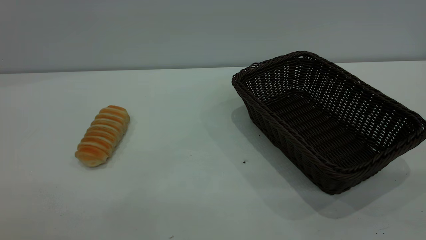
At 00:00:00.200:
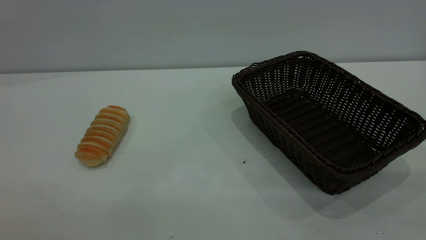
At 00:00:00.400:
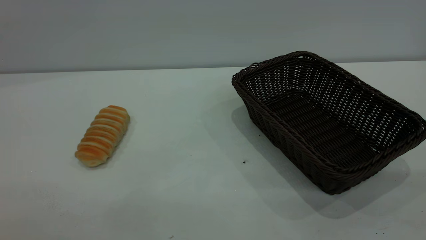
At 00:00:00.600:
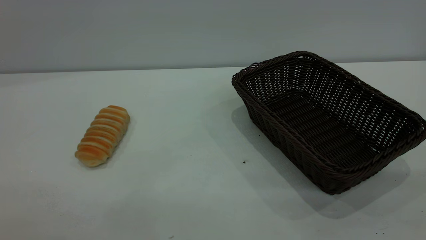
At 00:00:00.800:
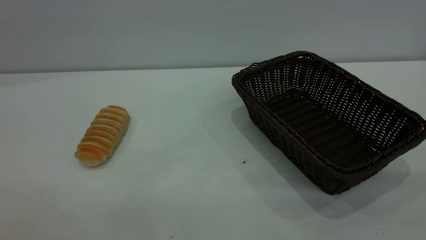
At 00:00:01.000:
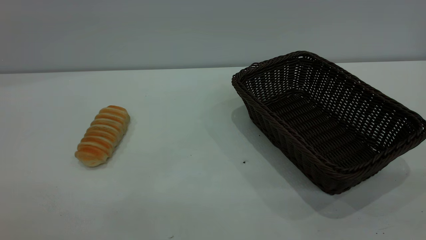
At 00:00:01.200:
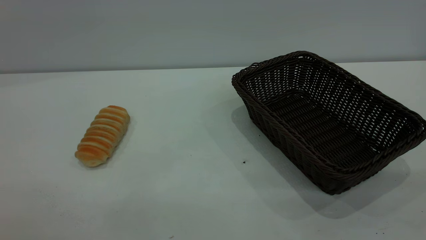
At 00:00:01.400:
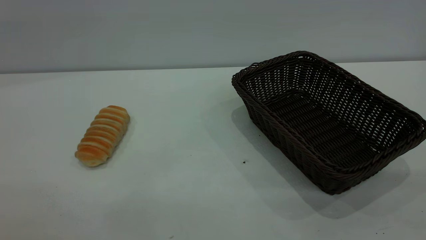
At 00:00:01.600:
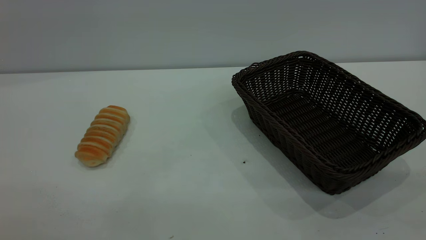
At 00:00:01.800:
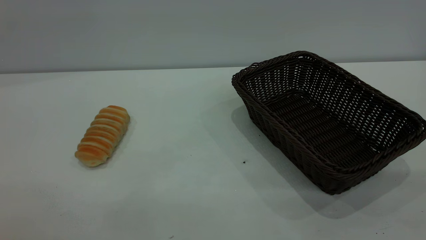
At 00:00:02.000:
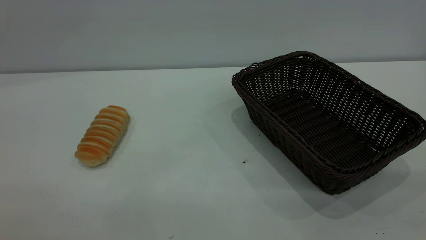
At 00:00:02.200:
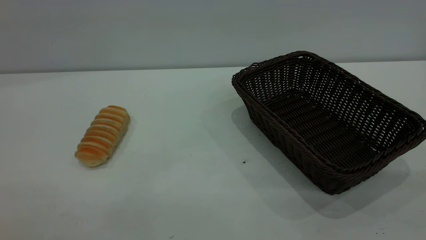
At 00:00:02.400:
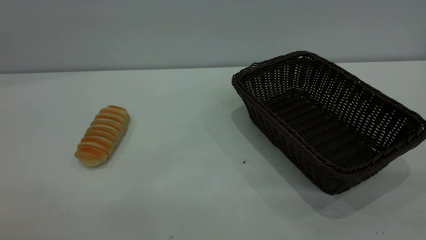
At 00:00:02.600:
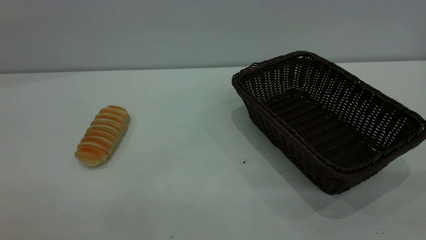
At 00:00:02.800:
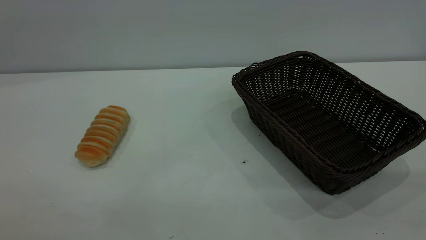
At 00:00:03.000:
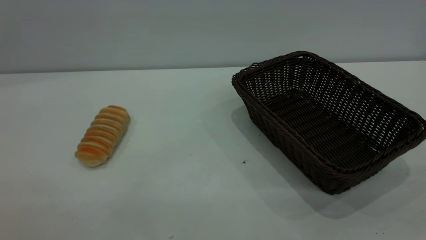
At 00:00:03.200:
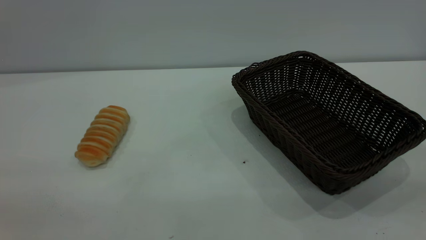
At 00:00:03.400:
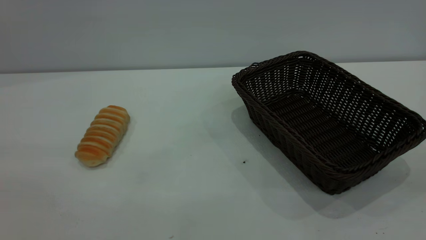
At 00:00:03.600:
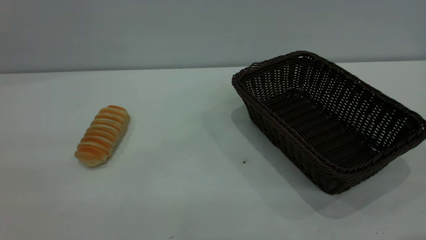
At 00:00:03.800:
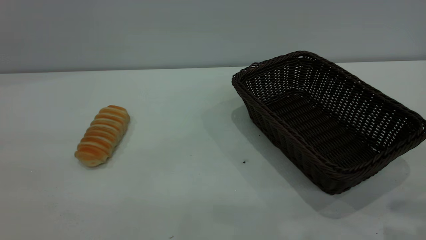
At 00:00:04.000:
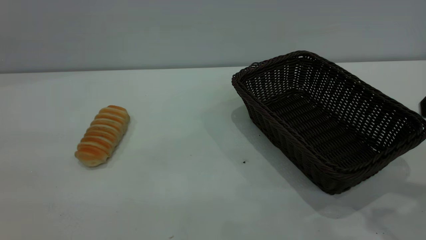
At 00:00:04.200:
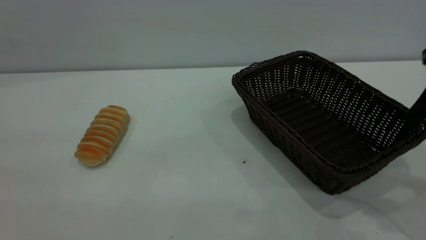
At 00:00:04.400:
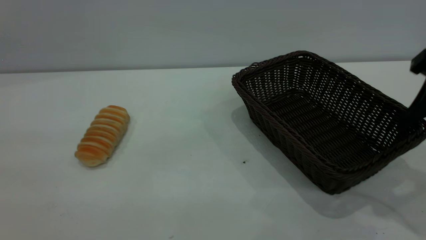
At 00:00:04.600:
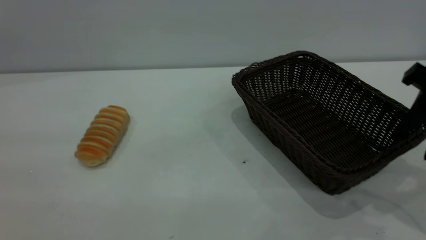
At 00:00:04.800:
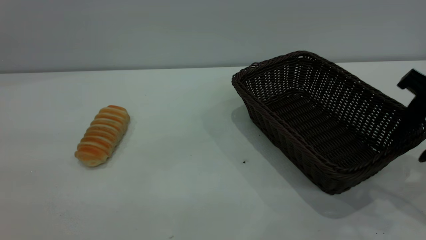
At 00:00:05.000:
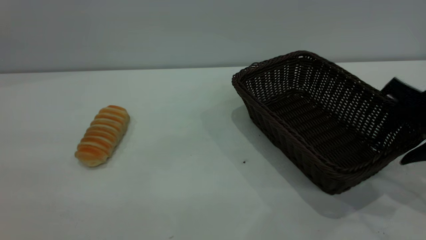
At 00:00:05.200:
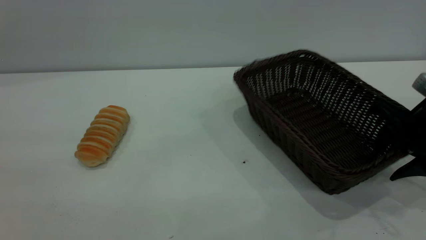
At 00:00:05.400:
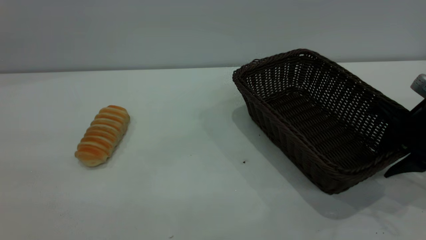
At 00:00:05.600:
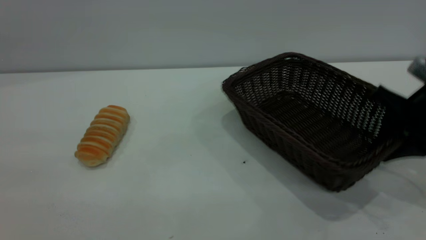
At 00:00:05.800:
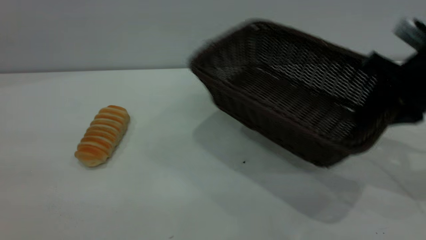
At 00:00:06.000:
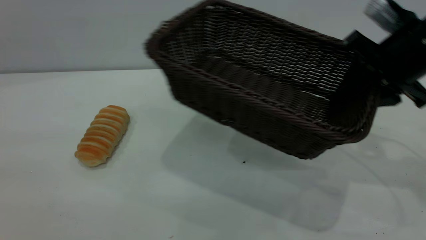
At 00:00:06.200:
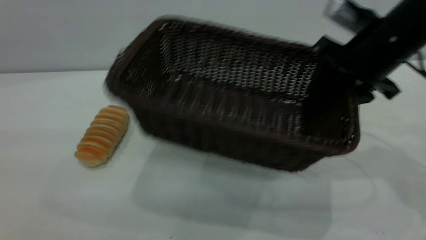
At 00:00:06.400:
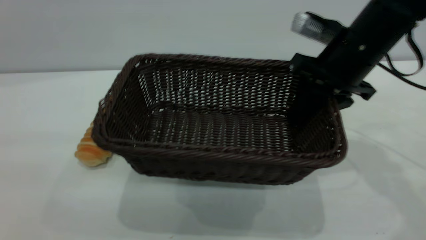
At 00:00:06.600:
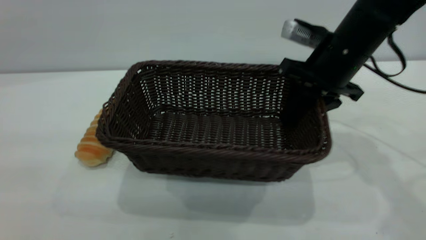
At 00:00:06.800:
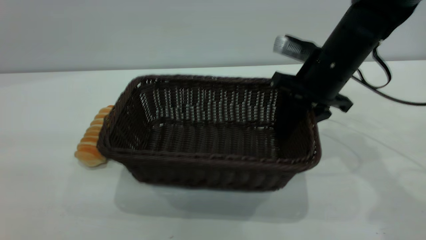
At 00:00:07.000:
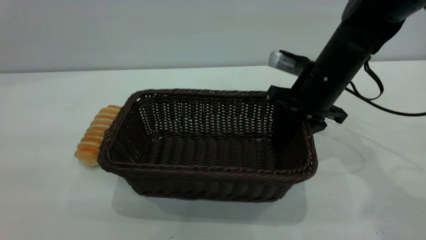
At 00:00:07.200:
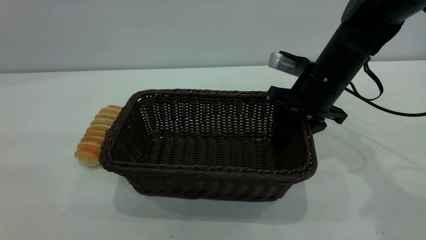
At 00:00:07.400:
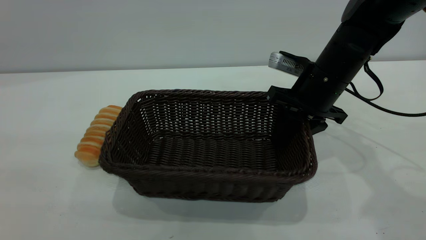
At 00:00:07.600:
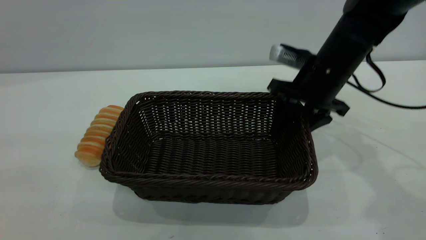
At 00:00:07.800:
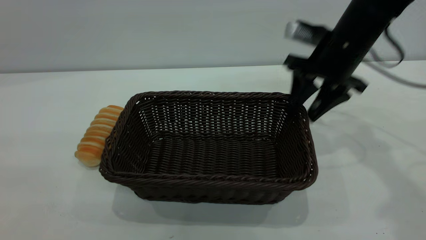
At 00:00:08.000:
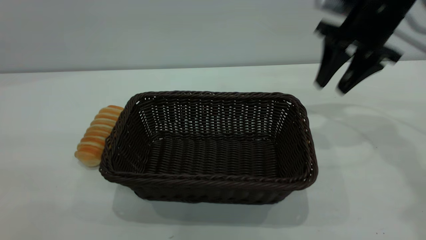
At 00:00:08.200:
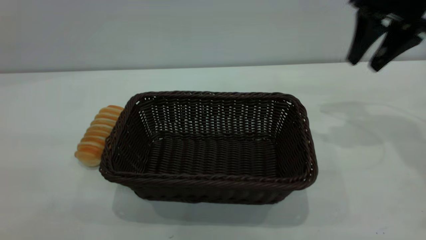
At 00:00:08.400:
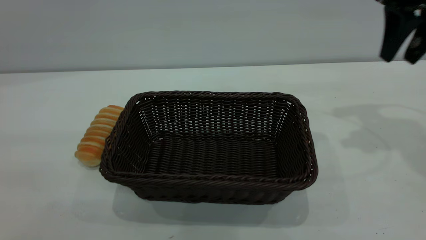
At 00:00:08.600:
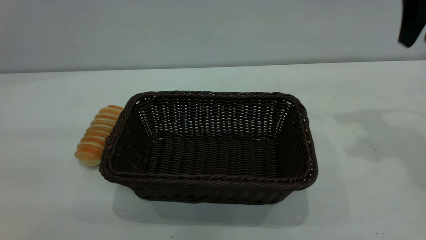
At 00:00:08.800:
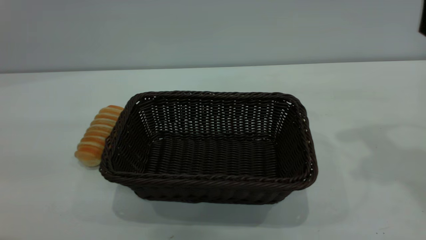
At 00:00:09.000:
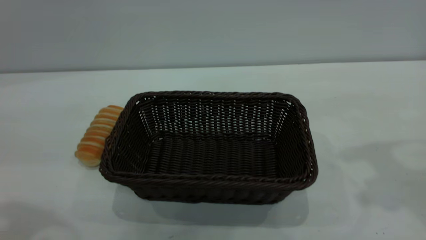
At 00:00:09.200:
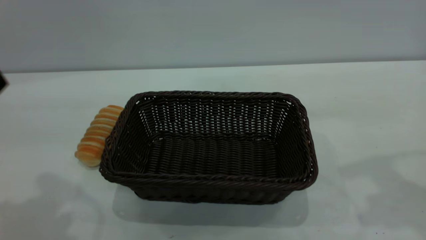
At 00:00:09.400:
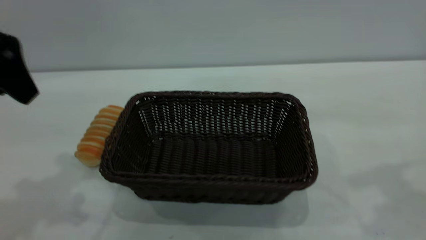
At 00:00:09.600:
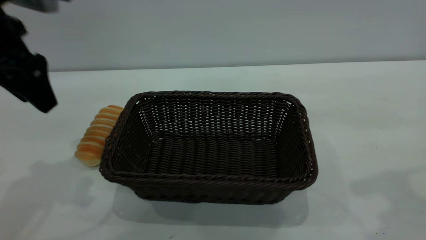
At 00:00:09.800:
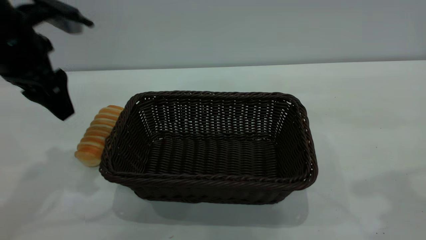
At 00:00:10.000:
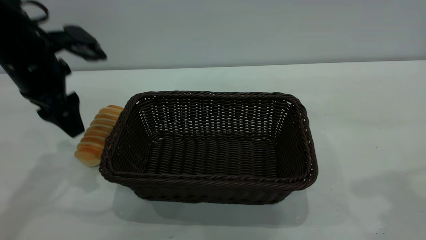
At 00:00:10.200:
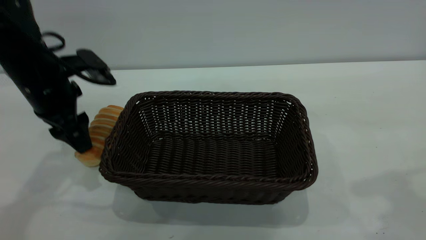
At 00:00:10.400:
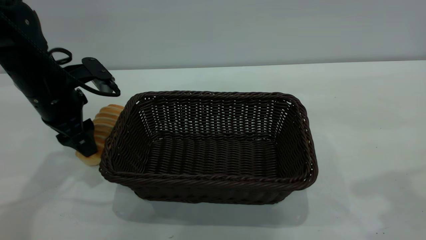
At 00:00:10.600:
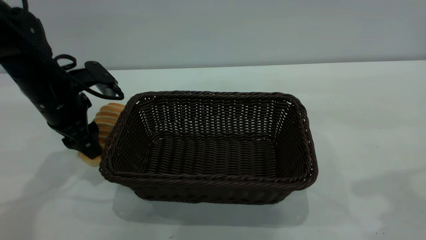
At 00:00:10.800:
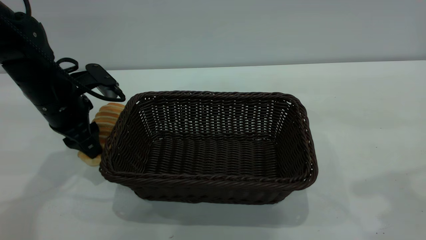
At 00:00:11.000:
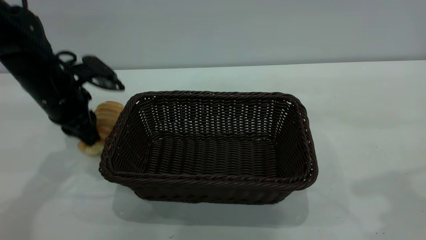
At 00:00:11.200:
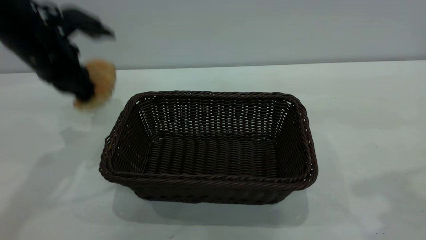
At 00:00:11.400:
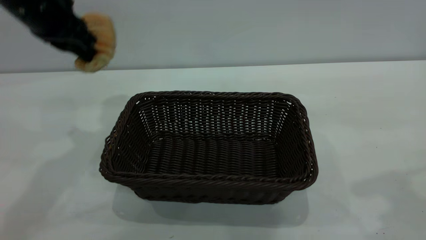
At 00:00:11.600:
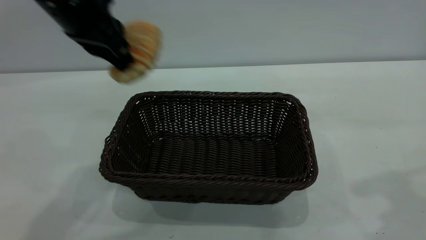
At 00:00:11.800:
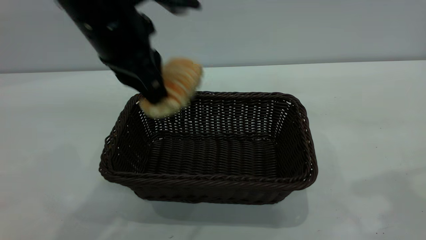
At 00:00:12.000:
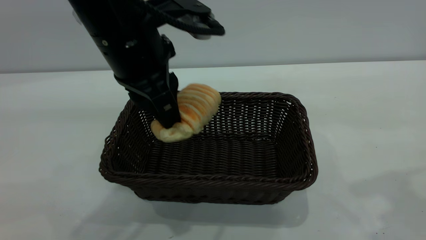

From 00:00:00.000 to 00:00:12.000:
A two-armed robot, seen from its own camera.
Task of the whole recording: One hand grasps the black basket and places it in the middle of the table, while the other hand picks up the long bread and puts it into the black basket.
Step, from 00:00:00.000 to 00:00:08.000: Move the basket to the center of view.
From 00:00:00.000 to 00:00:01.600: Both grippers stay about where they are.
From 00:00:03.000 to 00:00:04.400: The right gripper heads forward and downward, covering about 30 cm.
From 00:00:04.400 to 00:00:06.000: The right gripper moves forward, roughly 10 cm, goes downward and returns, approximately 10 cm each way, and closes up.
From 00:00:06.000 to 00:00:07.600: The right gripper is displaced to the left, forward and downward by approximately 10 cm, and opens up.
From 00:00:07.600 to 00:00:09.000: The right gripper heads upward, backward and to the right, covering roughly 25 cm; the left gripper goes approximately 15 cm forward.
From 00:00:09.000 to 00:00:10.400: The right gripper moves backward, some 5 cm. The left gripper travels downward and forward by roughly 30 cm.
From 00:00:10.400 to 00:00:12.000: The left gripper travels to the right, upward and backward by some 20 cm, and closes up.

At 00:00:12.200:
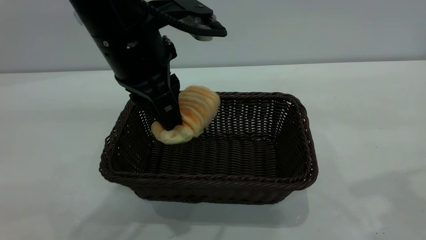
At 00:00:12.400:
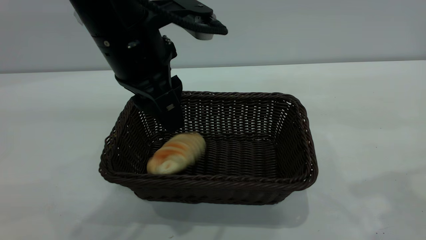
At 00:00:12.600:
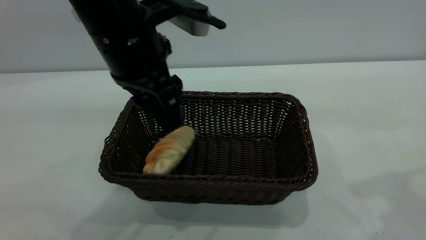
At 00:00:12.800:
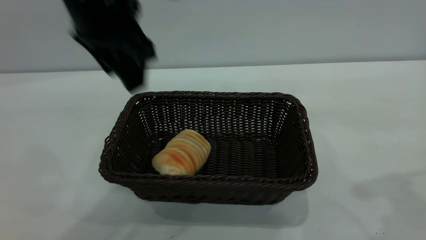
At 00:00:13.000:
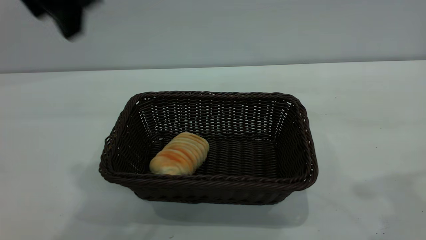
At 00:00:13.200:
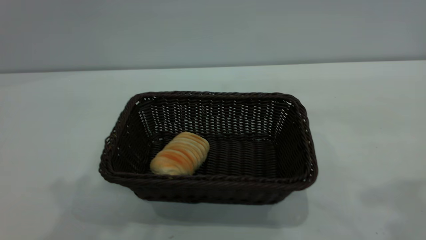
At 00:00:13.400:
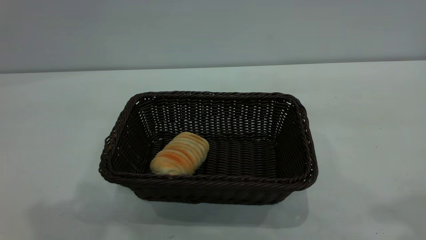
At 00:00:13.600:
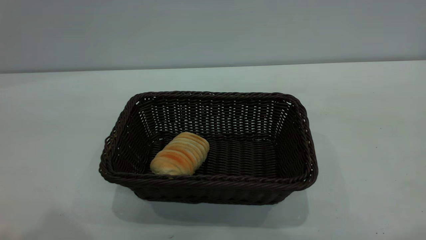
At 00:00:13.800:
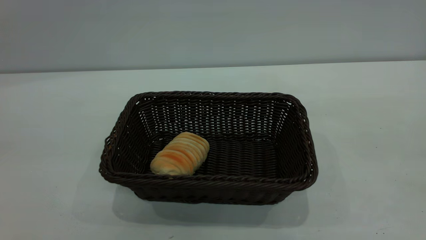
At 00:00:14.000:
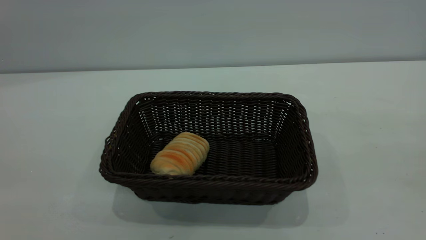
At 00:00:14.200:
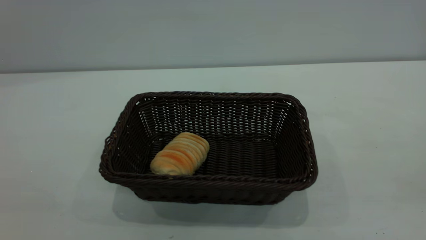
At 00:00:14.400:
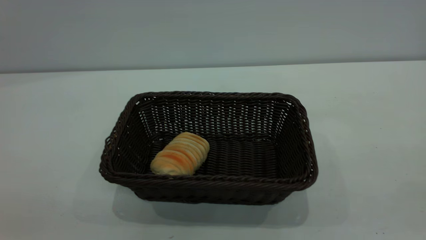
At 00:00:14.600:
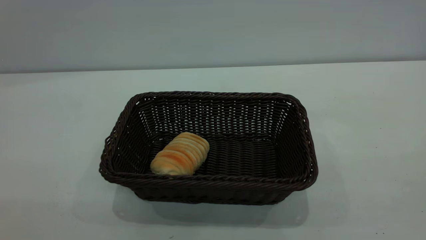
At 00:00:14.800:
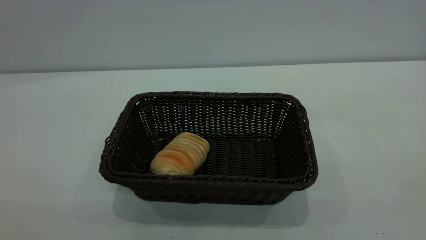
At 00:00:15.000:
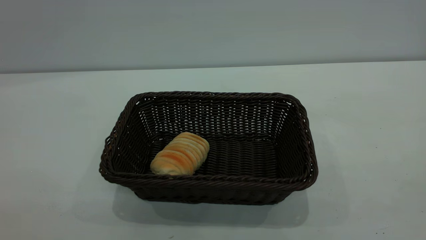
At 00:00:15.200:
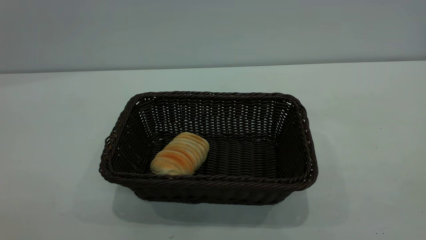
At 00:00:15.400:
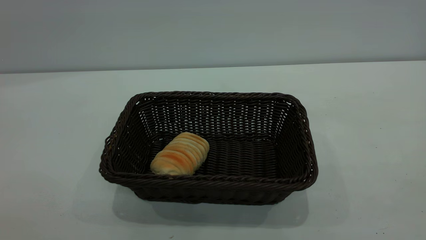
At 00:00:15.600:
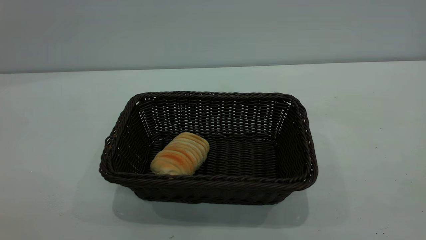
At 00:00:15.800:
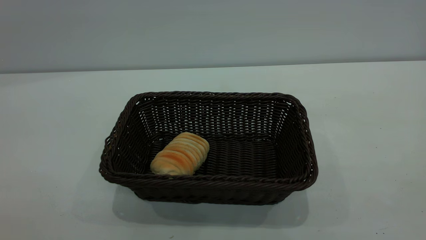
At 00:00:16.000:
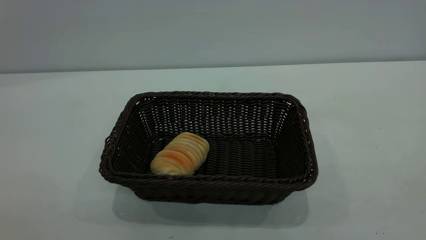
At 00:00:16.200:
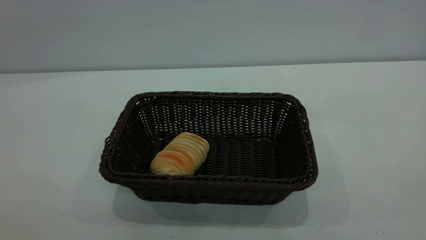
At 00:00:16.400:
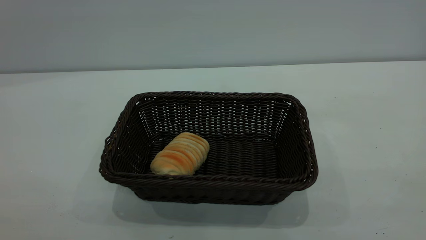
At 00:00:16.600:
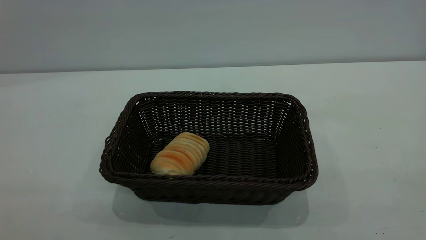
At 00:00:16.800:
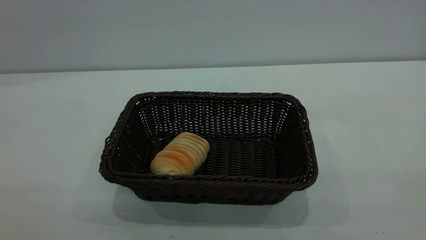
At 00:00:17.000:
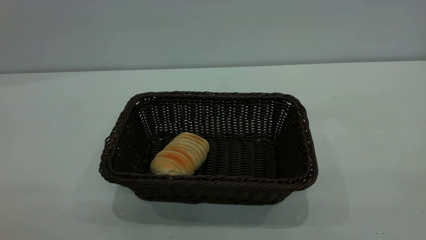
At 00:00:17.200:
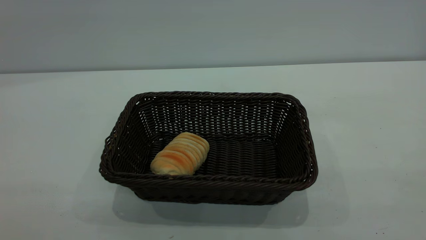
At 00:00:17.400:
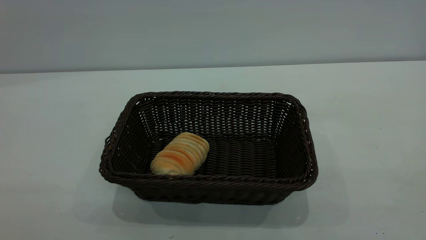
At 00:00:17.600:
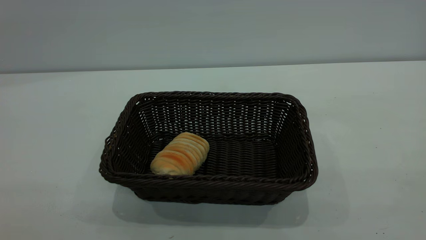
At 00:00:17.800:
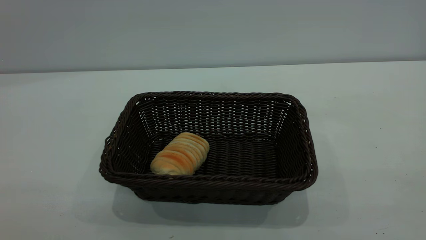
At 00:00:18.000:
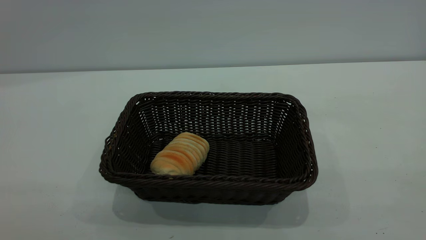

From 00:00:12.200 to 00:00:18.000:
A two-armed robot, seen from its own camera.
Task of the whole recording: One hand grasps the black basket and places it in the middle of the table, while the other hand picks up the long bread and puts it into the black basket.
From 00:00:12.200 to 00:00:13.600: The right gripper goes roughly 10 cm backward. Meanwhile the left gripper heads upward, backward and to the left, covering some 30 cm, and opens its fingers.
From 00:00:16.600 to 00:00:18.000: Both grippers stay about where they are.
